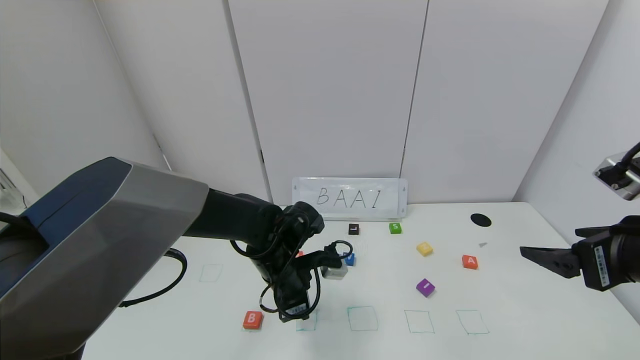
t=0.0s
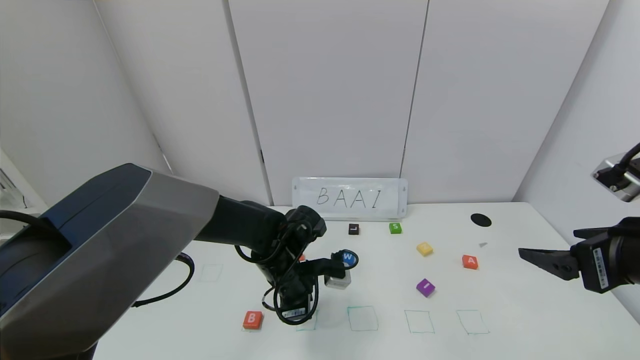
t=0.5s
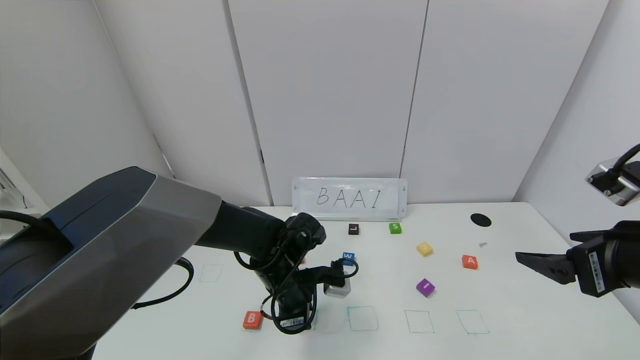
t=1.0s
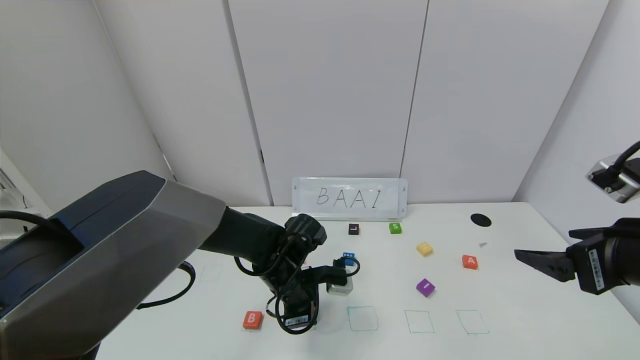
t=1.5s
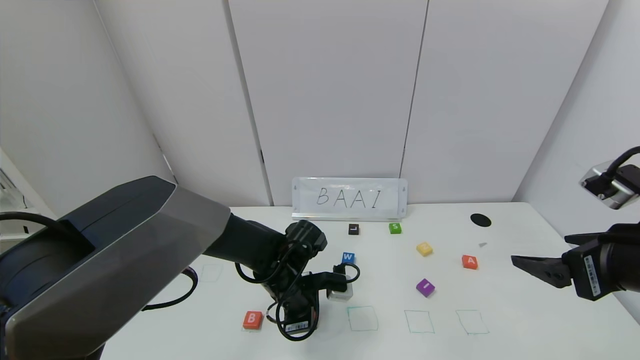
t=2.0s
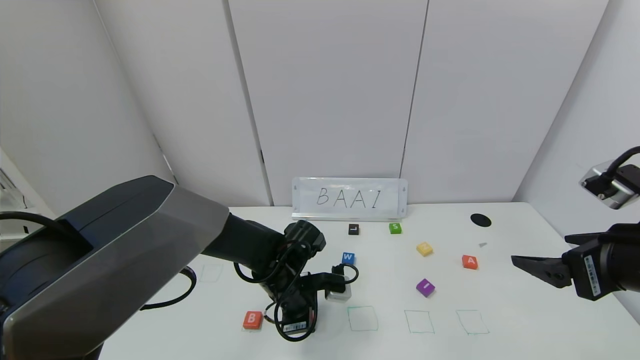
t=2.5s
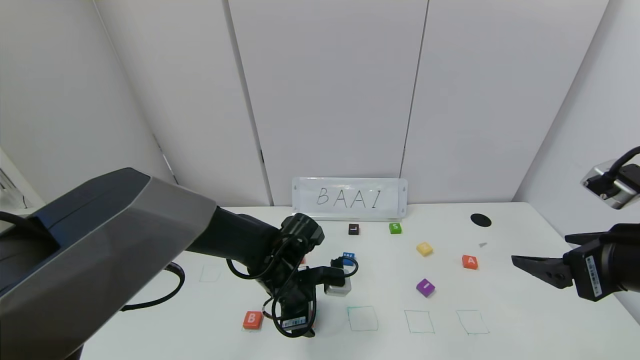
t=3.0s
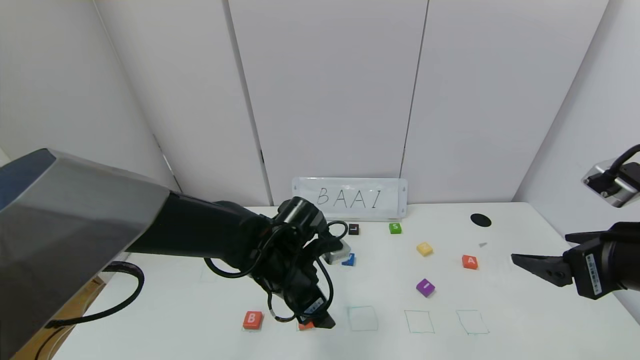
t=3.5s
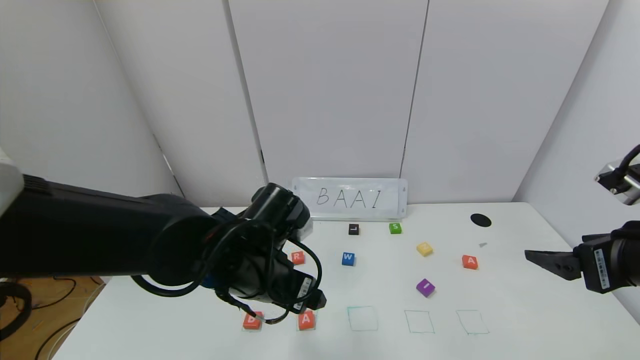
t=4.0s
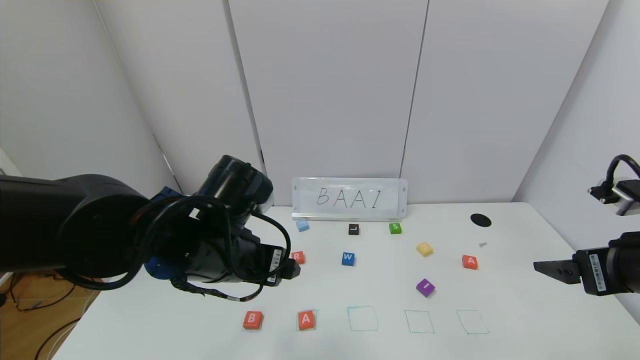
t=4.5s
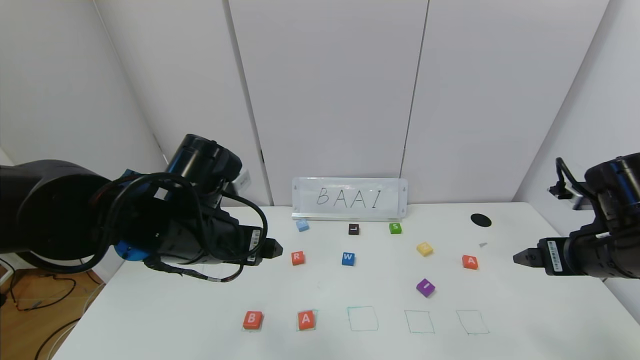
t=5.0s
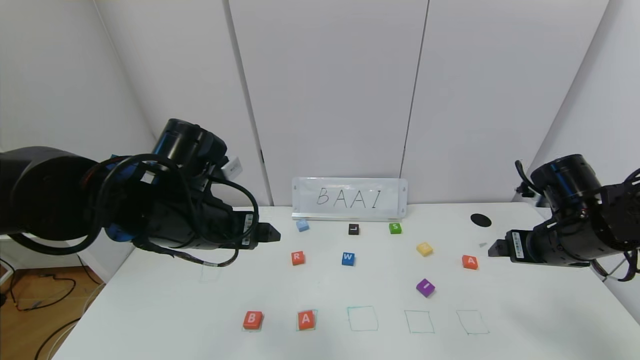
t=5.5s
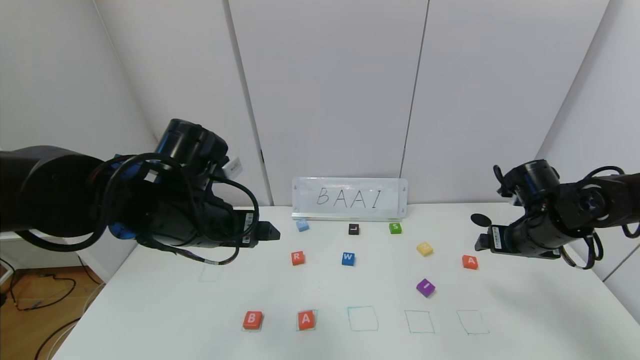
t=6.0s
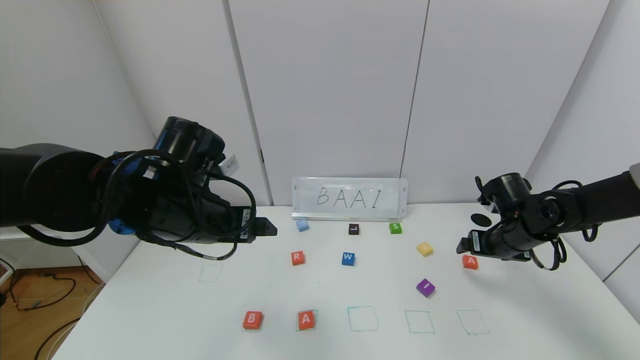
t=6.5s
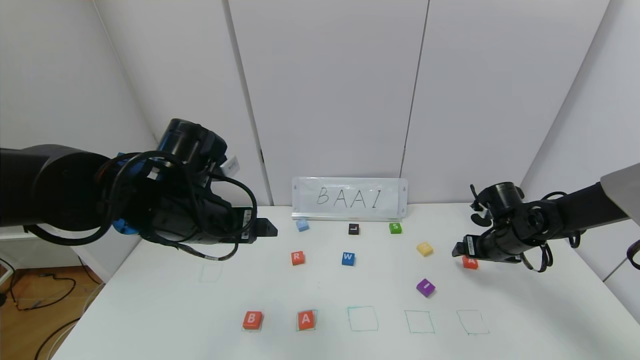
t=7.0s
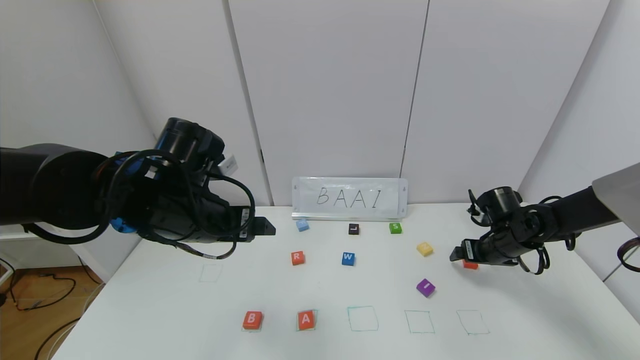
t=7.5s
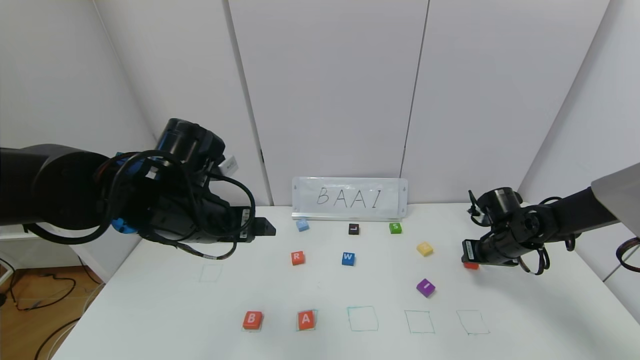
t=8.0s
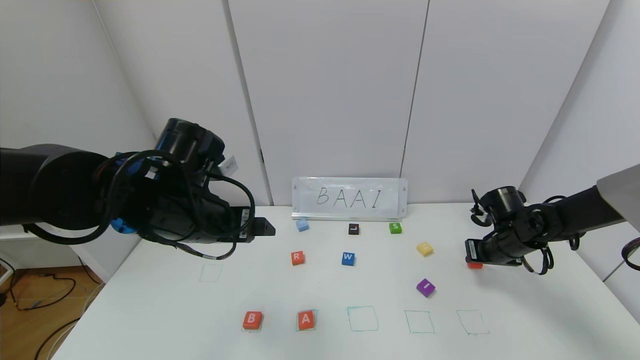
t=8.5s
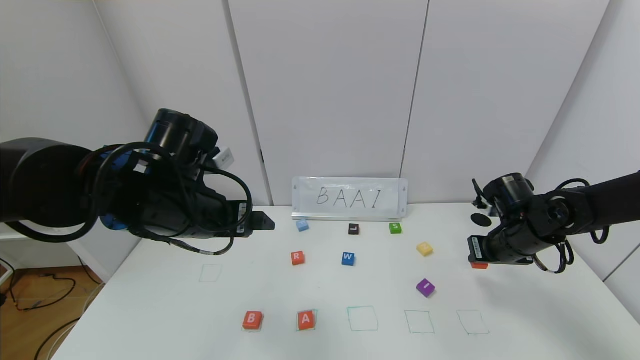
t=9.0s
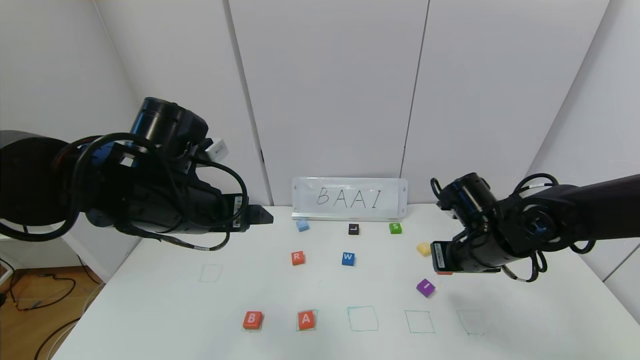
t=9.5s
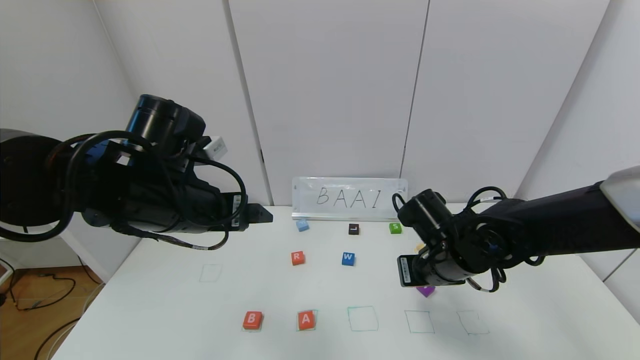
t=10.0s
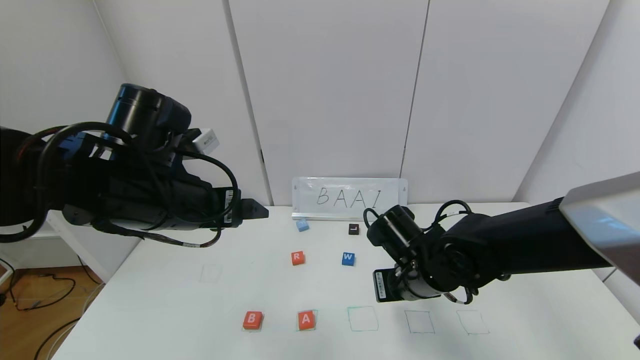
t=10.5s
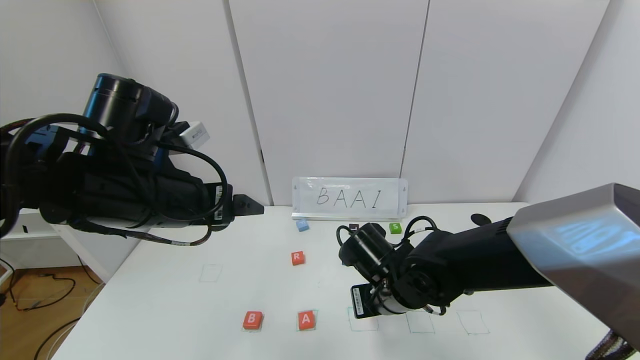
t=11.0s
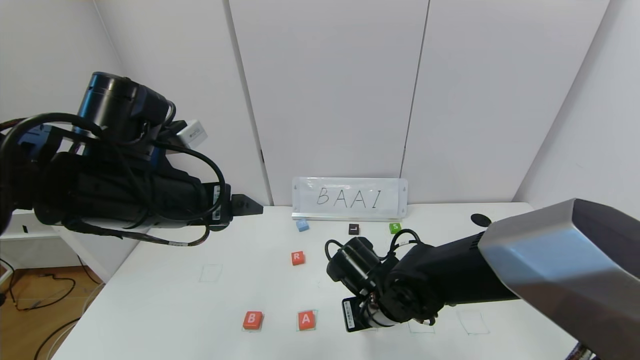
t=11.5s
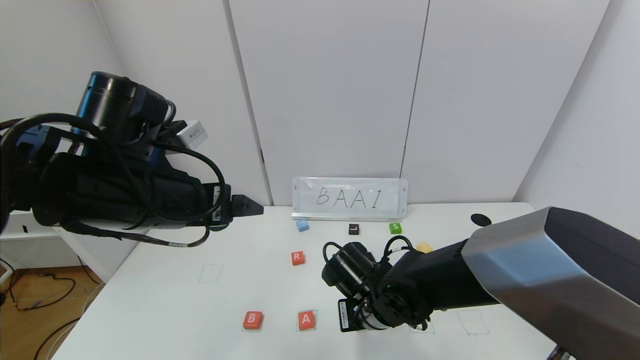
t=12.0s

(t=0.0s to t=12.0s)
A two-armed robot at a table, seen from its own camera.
Task of the whole recording: use the gripper to find blocks with the letters b, a, a, and i on the table and arrange them into BAAI, then find r and N and turn the arranged baai into brian.
Step, t=0.0s - t=2.5s: Place the first block A in the second location.
t=0.0s - t=2.0s: The grippers stay close to where they were, moving slightly.
t=2.0s - t=4.0s: The left gripper travels upward and backward by roughly 15 cm, and opens up.
t=4.0s - t=6.0s: The right gripper moves forward and downward, roughly 20 cm; the left gripper travels to the left and upward by roughly 10 cm.
t=6.0s - t=8.0s: The right gripper travels downward and forward by roughly 10 cm, and closes.
t=8.0s - t=10.0s: The right gripper moves to the left and backward, roughly 20 cm.
t=10.0s - t=12.0s: The right gripper goes approximately 10 cm to the left and downward.

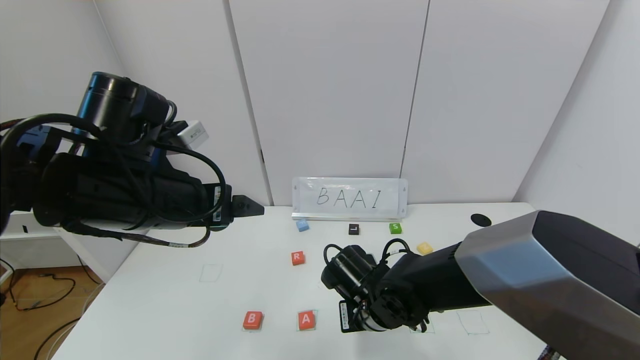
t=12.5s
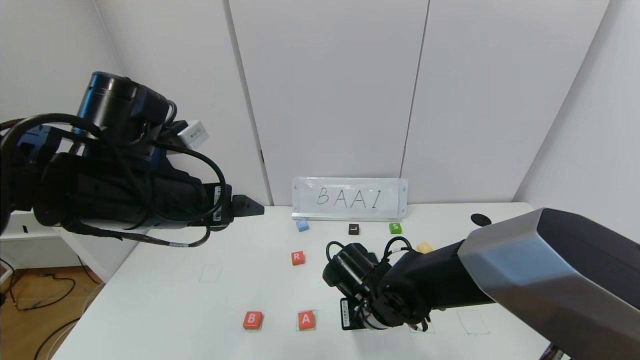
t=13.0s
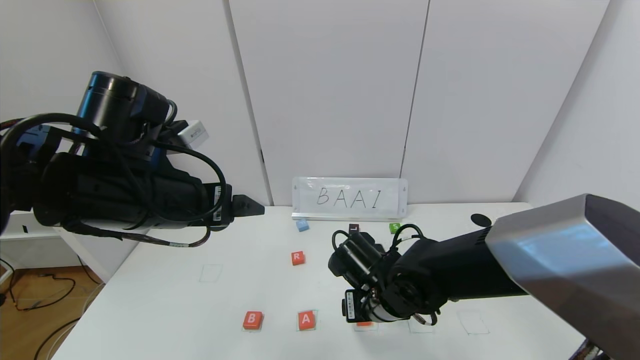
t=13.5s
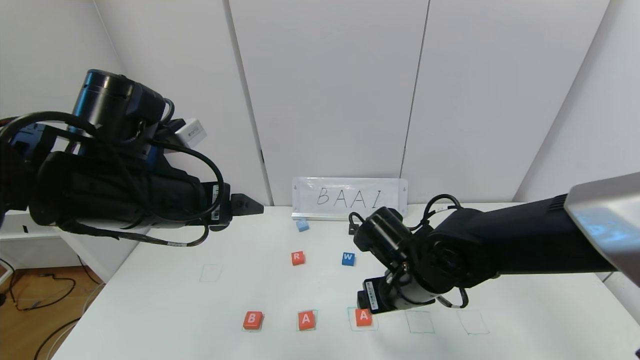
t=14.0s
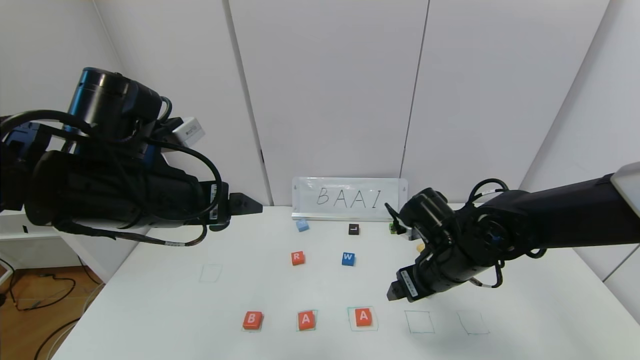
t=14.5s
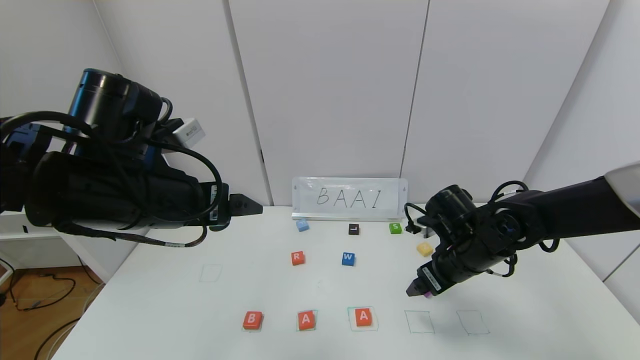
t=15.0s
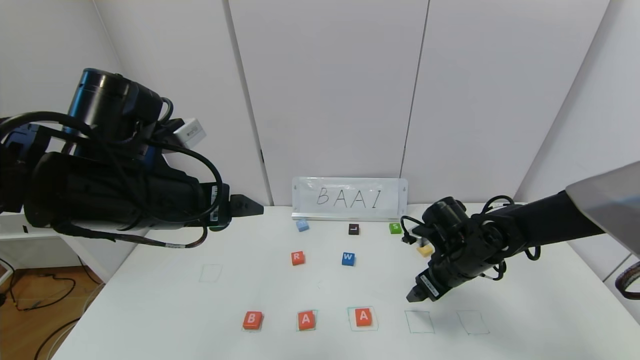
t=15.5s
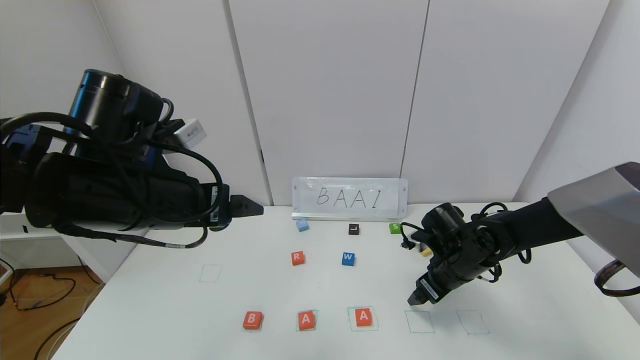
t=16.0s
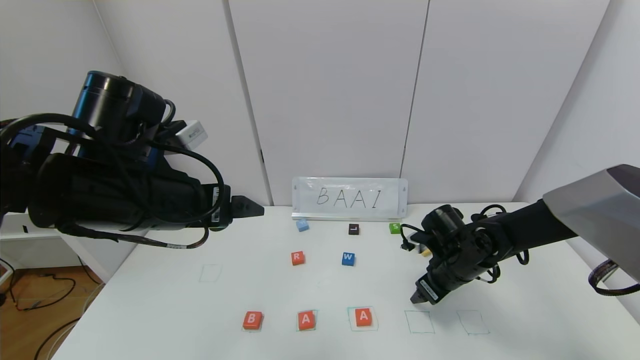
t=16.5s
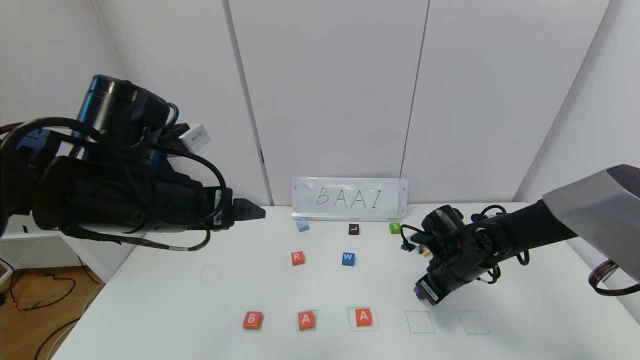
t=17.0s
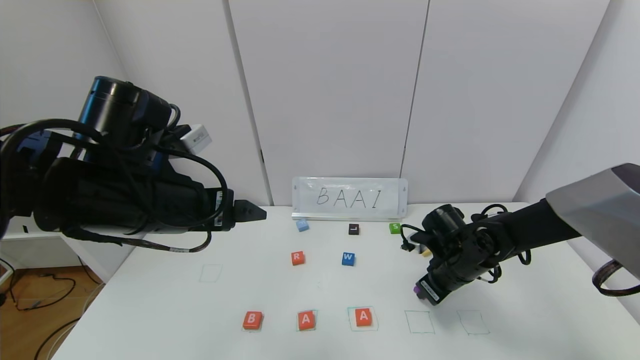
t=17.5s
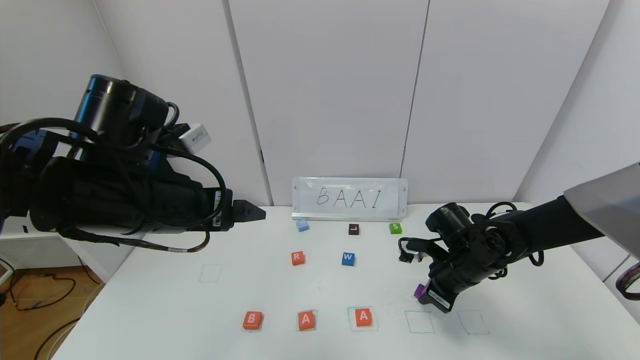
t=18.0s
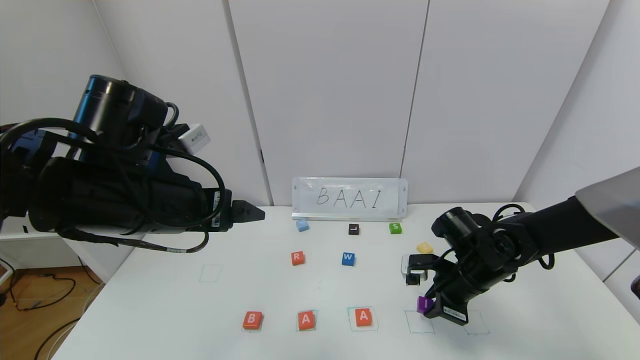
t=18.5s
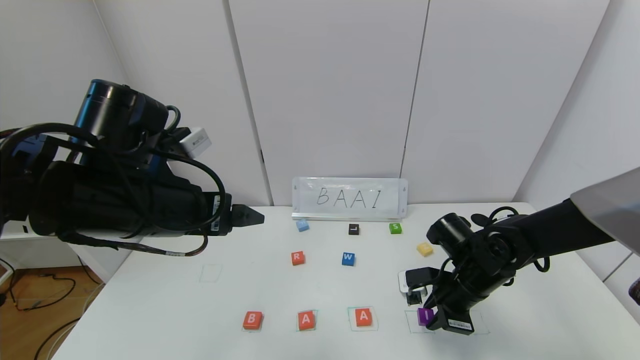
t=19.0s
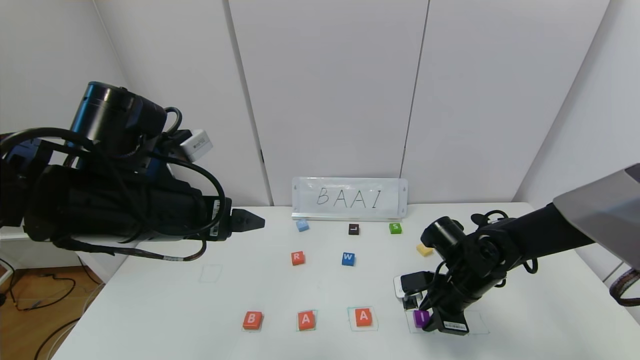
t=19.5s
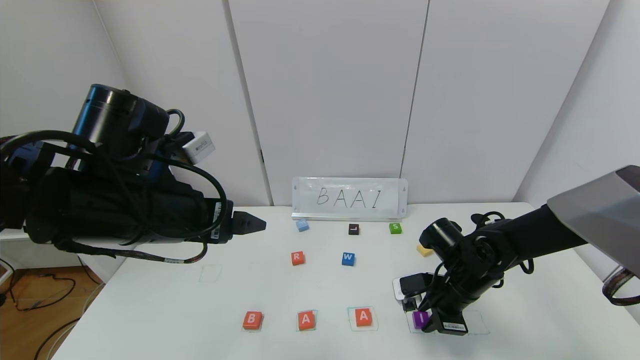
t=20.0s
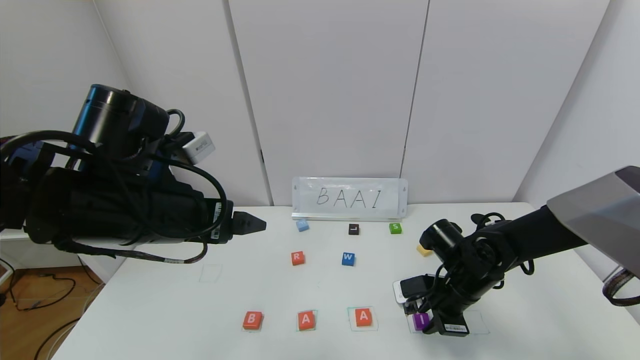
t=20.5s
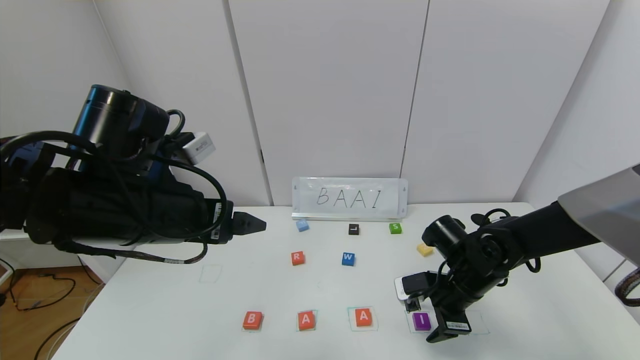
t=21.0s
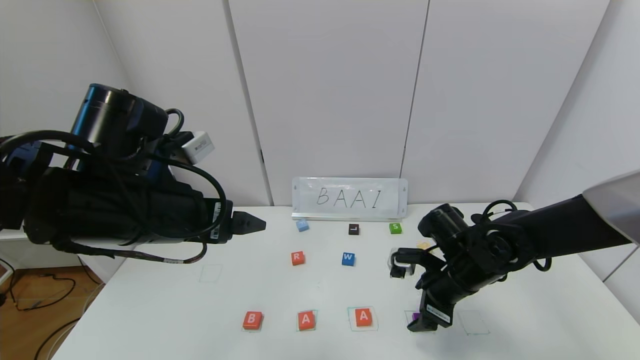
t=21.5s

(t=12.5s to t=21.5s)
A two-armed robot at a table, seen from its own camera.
Task of the whole recording: use the gripper to find blocks with the letters b, a, a, and i on the table and arrange them into BAAI, then find r and N and turn the arranged baai into brian.
Step, t=13.5s - t=21.0s: Place the block I in the fourth location.
t=12.5s - t=14.5s: The right gripper shifts approximately 15 cm to the right and upward, and opens up.
t=14.5s - t=17.0s: The right gripper is displaced downward, forward and to the right by roughly 10 cm, and closes.
t=19.5s - t=21.5s: The right gripper opens its fingers.
